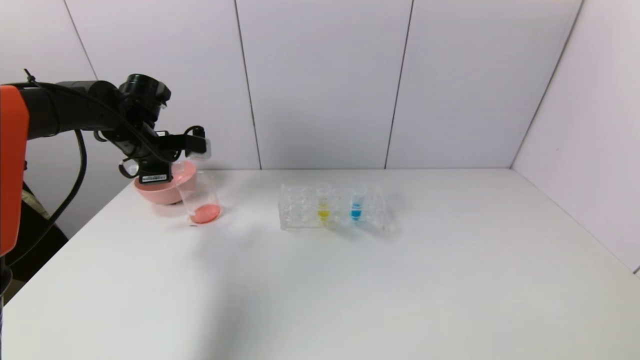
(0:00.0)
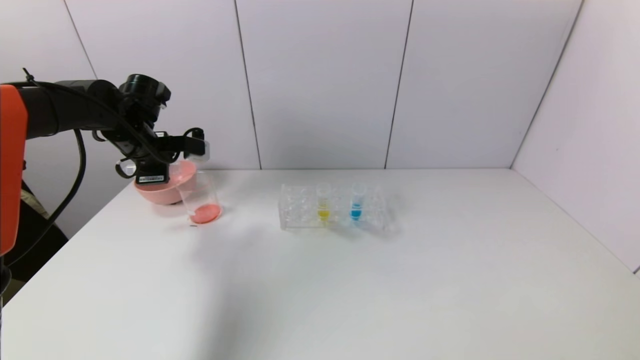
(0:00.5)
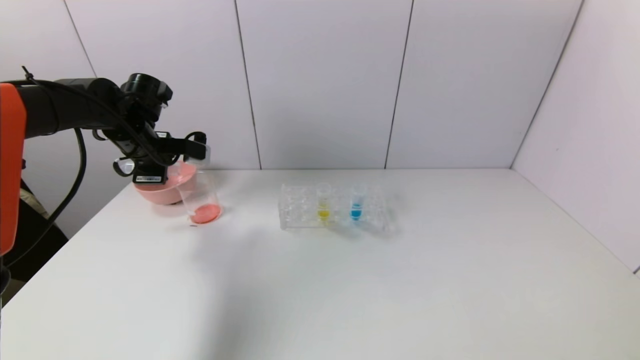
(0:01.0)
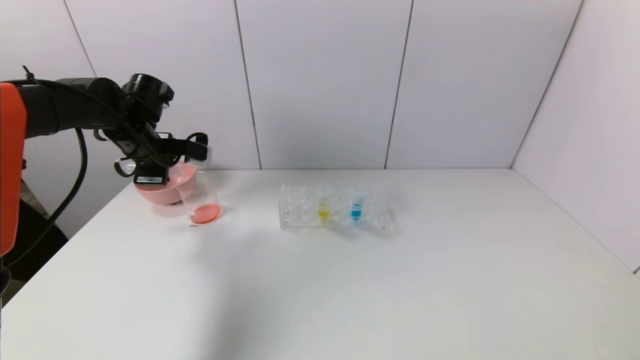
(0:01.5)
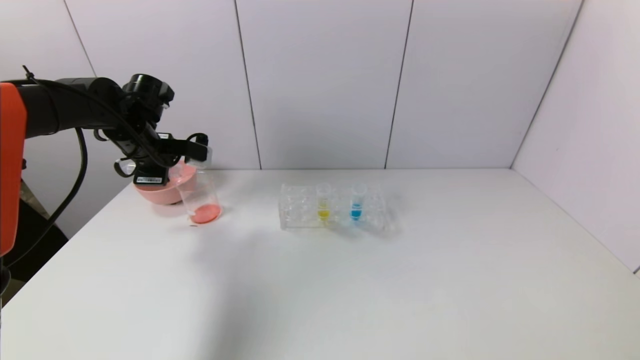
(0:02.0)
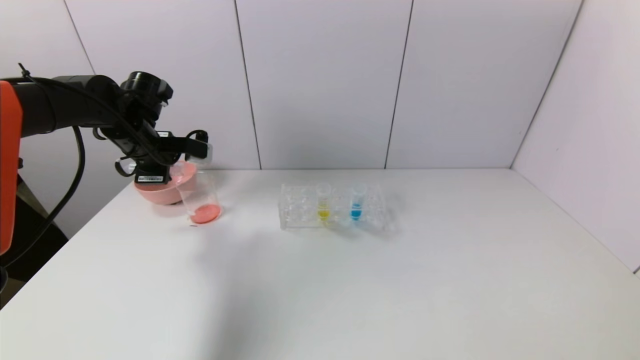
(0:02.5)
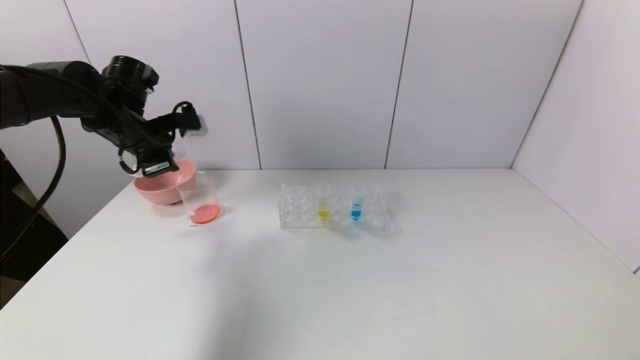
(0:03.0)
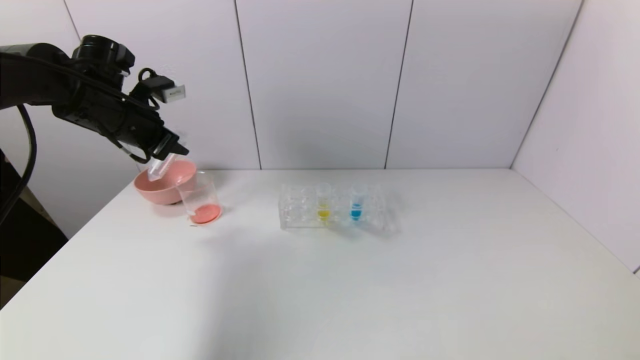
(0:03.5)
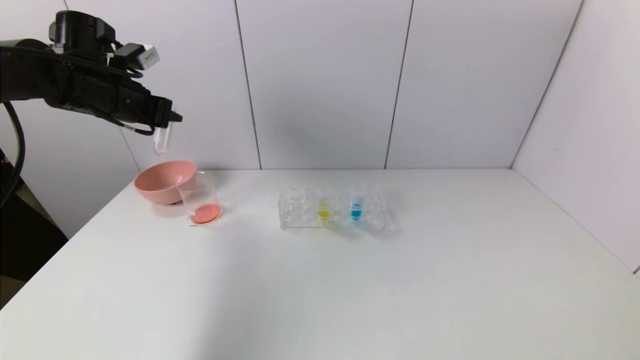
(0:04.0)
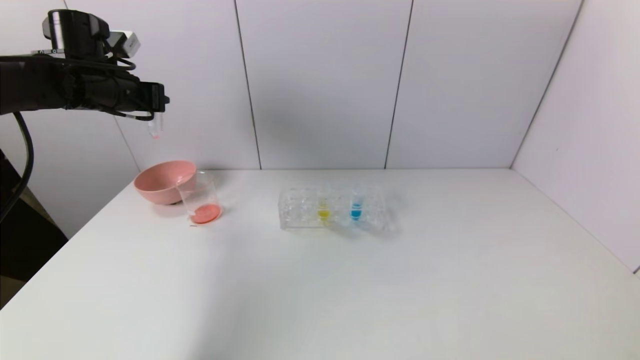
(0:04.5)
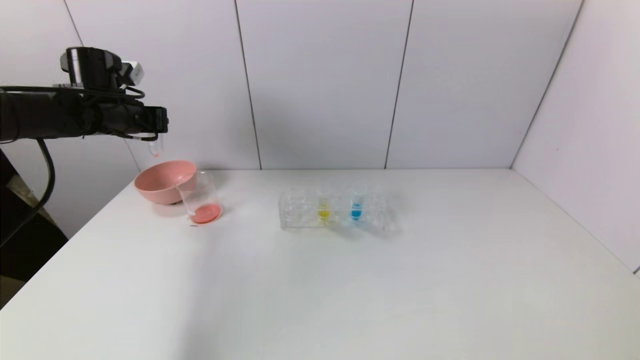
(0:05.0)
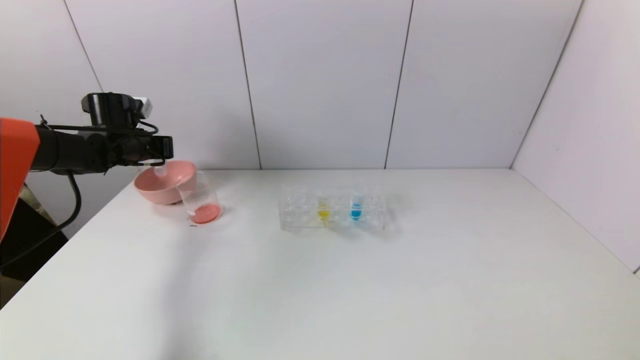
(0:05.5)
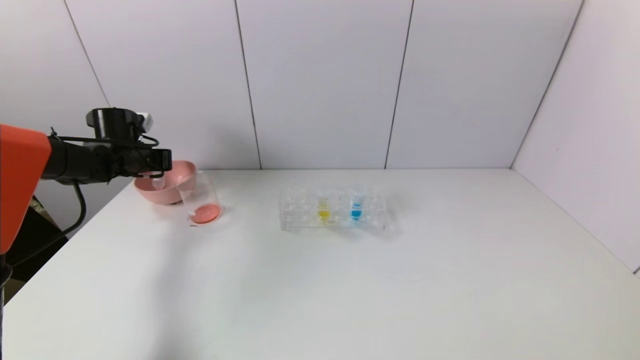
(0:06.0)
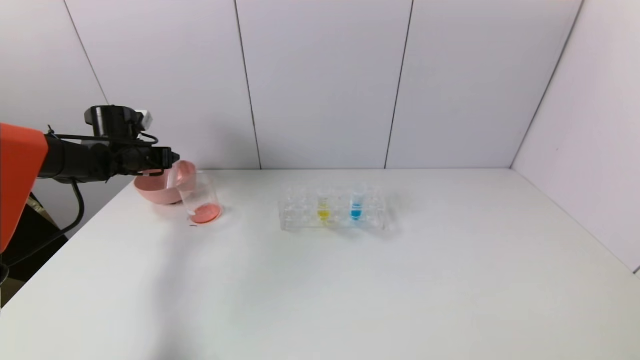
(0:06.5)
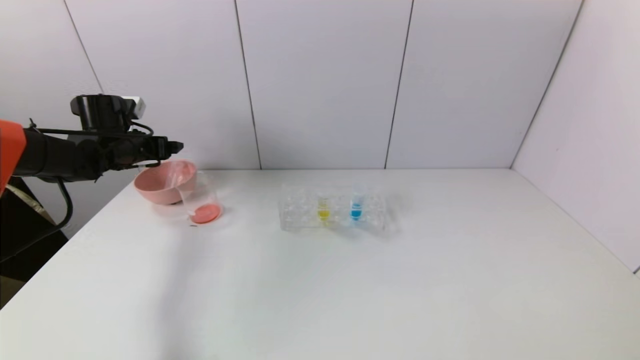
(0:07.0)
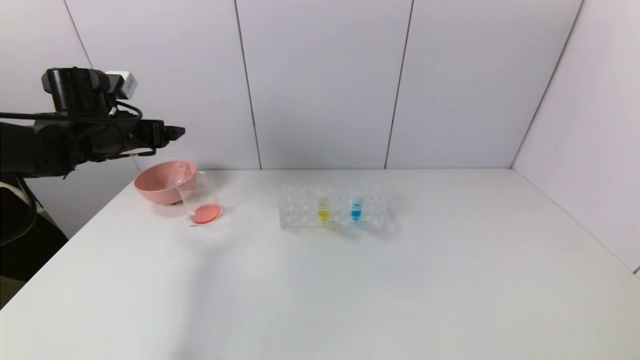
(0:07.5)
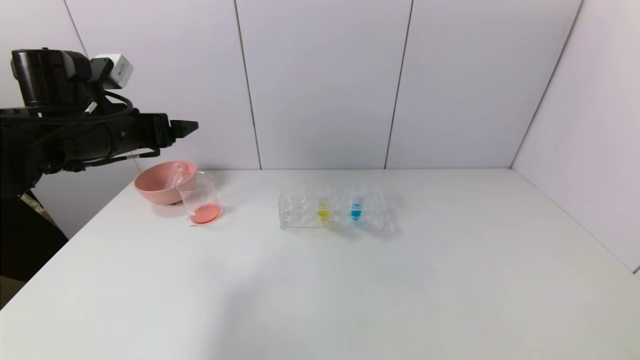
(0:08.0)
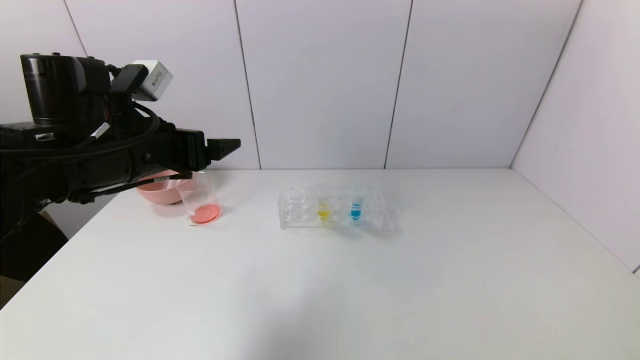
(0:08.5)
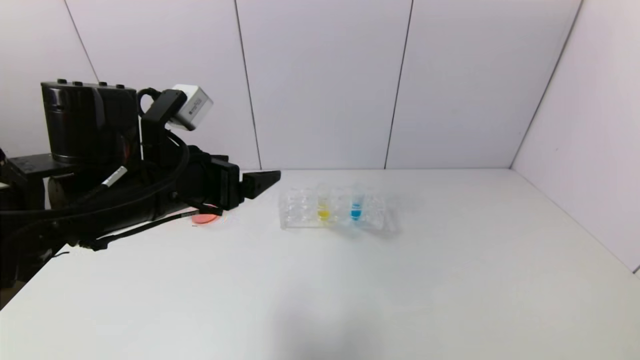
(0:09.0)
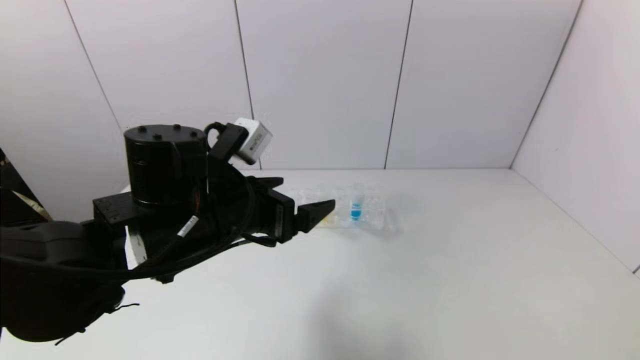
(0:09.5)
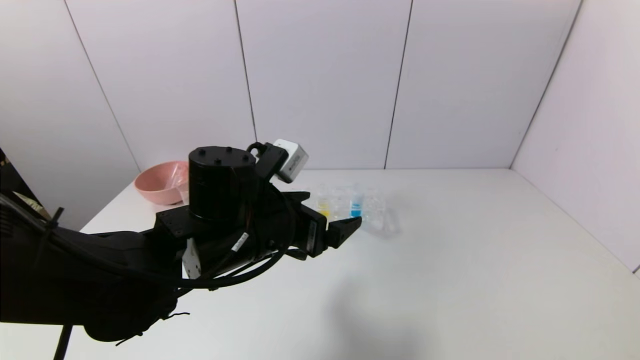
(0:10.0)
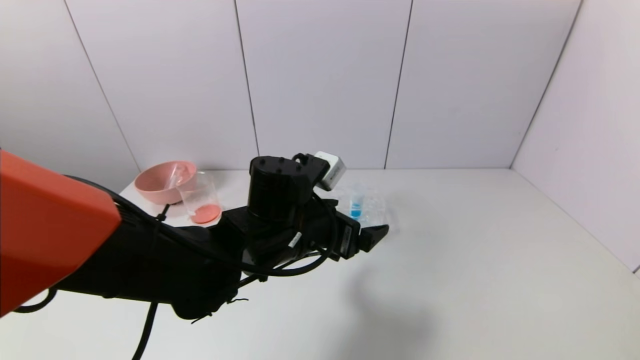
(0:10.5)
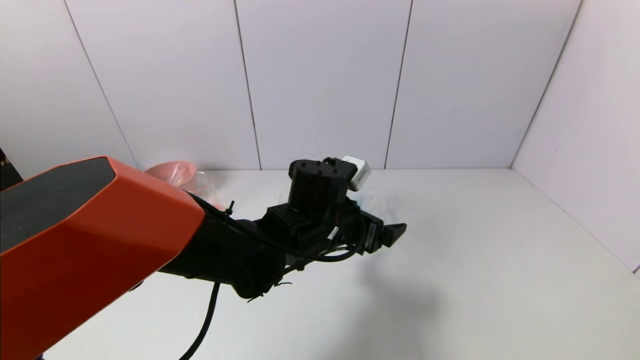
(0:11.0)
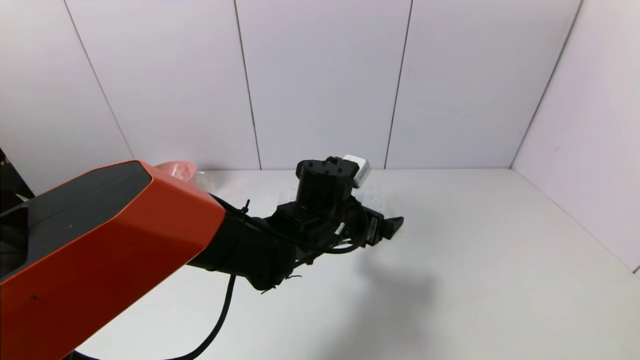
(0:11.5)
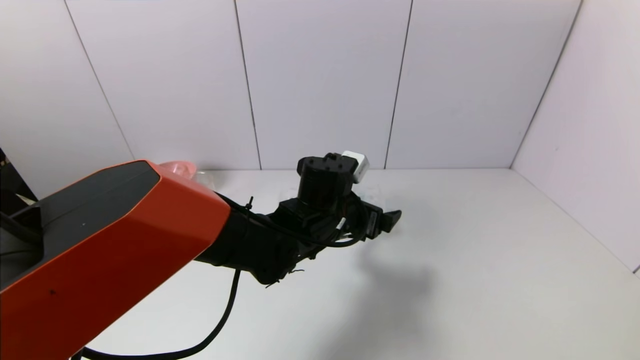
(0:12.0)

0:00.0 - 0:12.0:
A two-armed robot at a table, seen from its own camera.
Task of the whole recording: pick up the test tube with red pigment and the test tube with blue pigment by grippers and pour them into the container.
Step, 0:00.0 - 0:03.5: Pour the red reagent into the graduated cylinder with the left gripper.
Step, 0:04.0 - 0:07.0: Place the test tube into the bowl with the left gripper.
0:00.0 - 0:02.0: The grippers stay close to where they were, moving slightly.
0:02.0 - 0:04.0: The left gripper moves upward, some 10 cm.
0:04.0 - 0:06.0: The left gripper moves downward, forward and to the left, about 15 cm.
0:06.0 - 0:08.0: The left gripper moves backward, upward and to the right, about 20 cm, and opens its fingers.
0:08.0 - 0:10.0: The left gripper travels to the right and downward by some 20 cm.
0:10.0 - 0:12.0: The left gripper heads to the right and forward, covering some 10 cm.

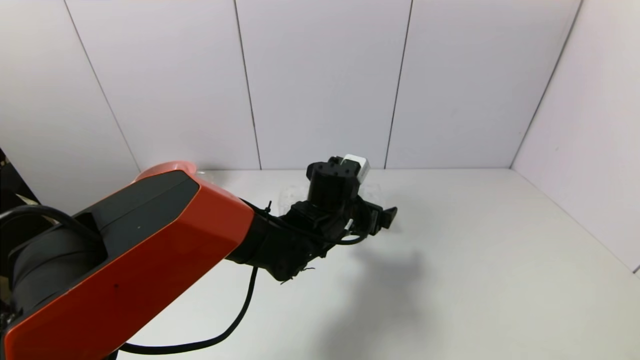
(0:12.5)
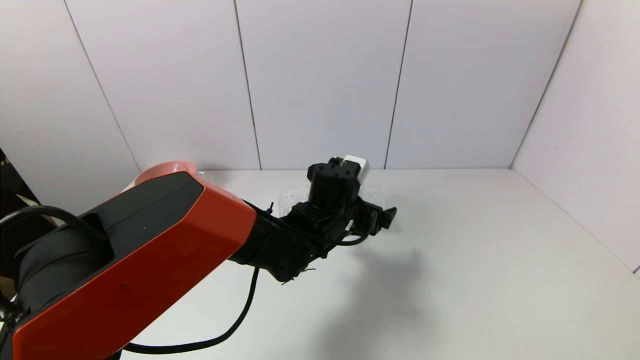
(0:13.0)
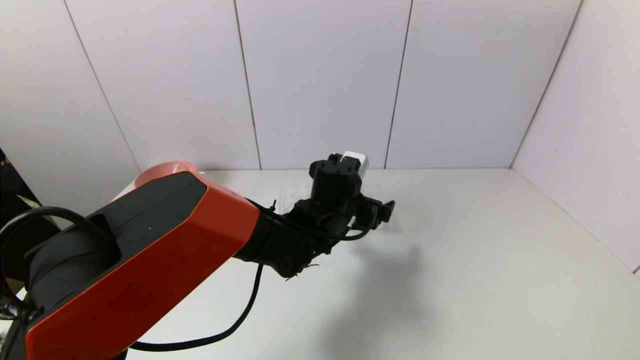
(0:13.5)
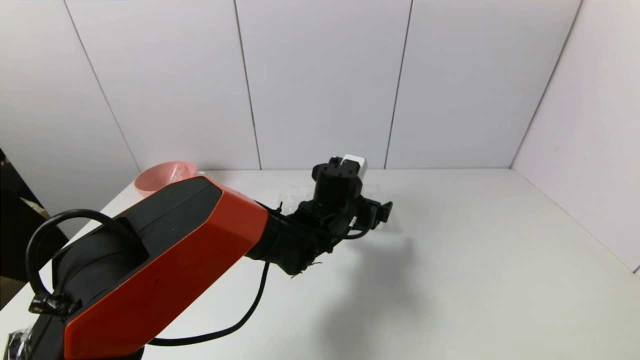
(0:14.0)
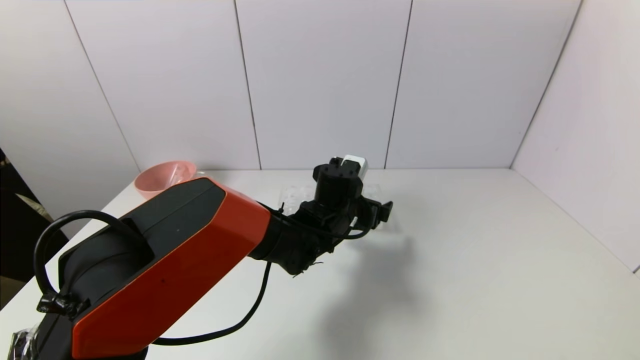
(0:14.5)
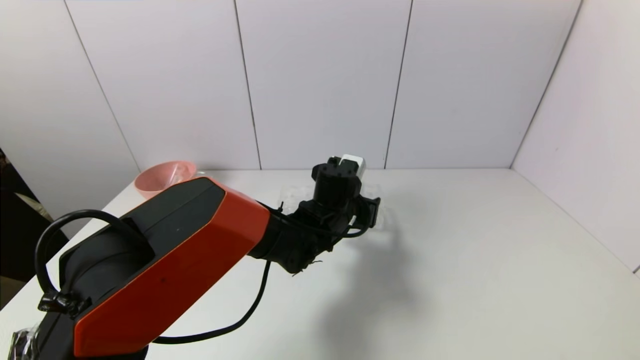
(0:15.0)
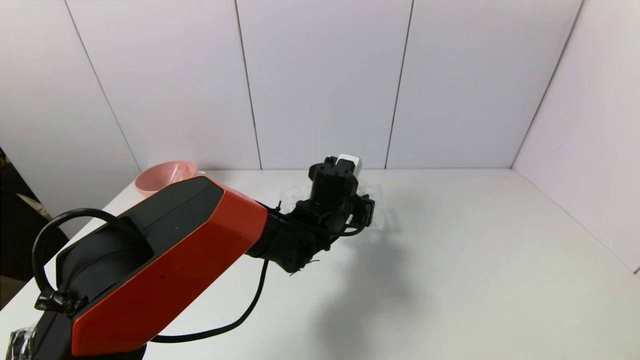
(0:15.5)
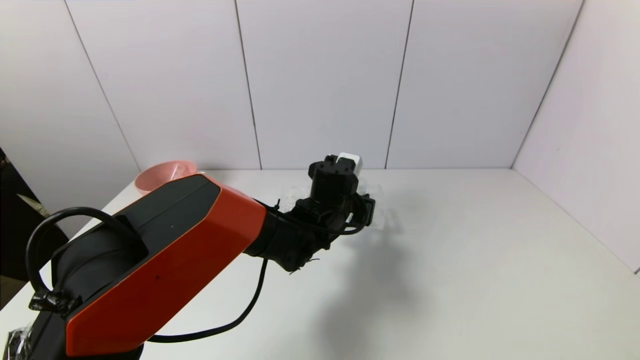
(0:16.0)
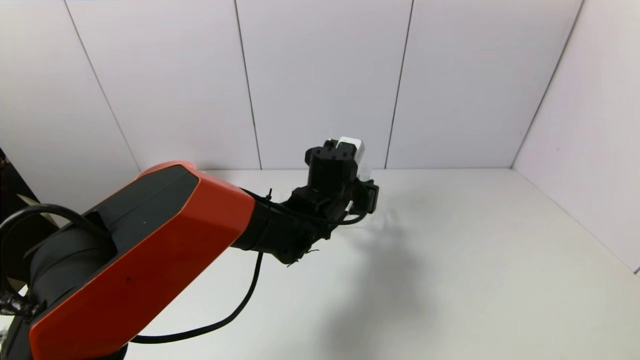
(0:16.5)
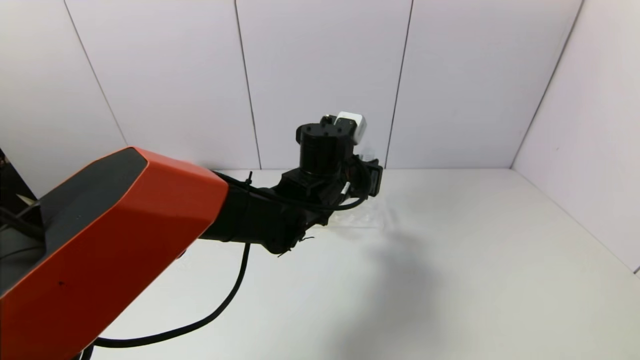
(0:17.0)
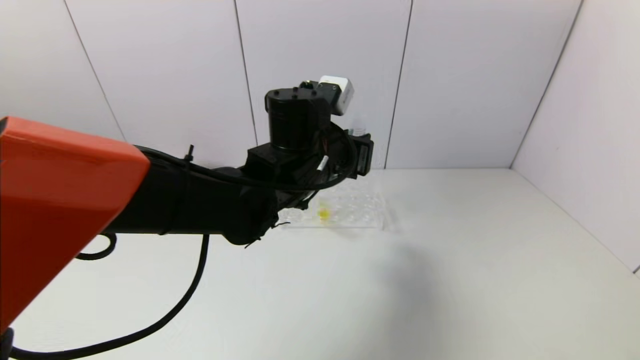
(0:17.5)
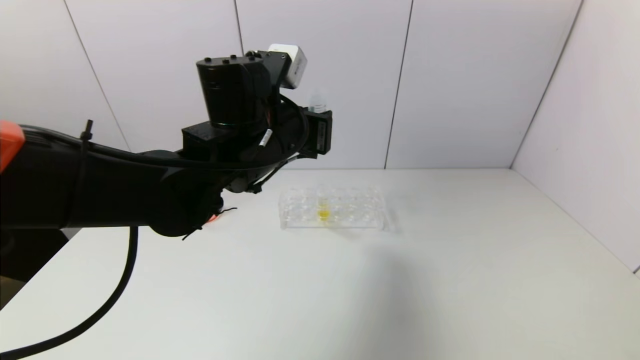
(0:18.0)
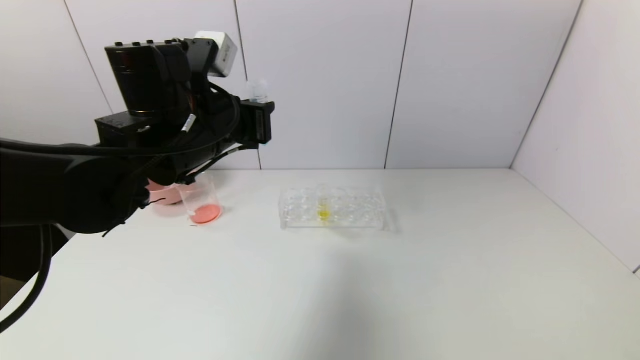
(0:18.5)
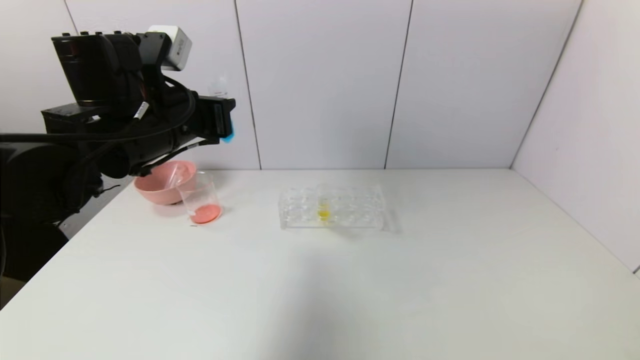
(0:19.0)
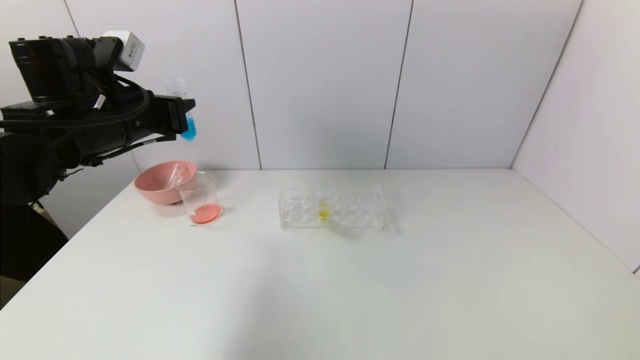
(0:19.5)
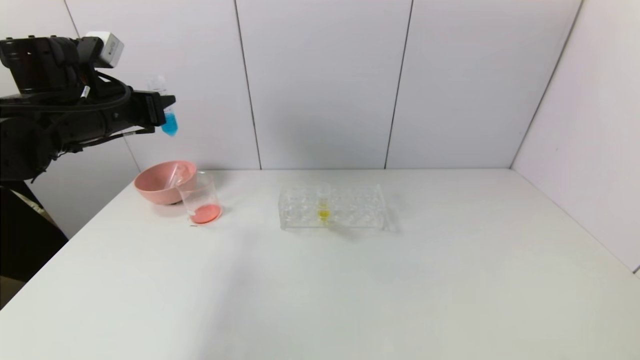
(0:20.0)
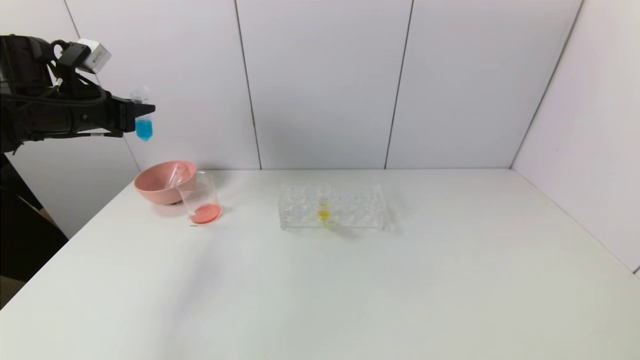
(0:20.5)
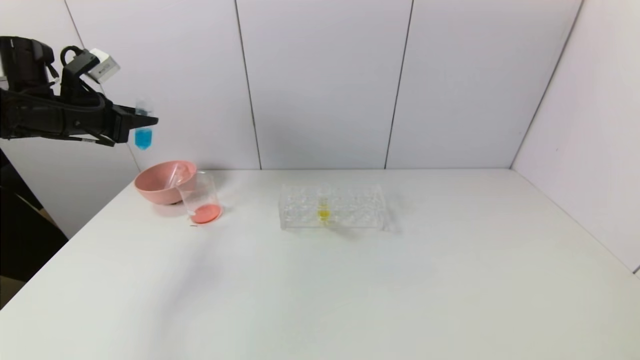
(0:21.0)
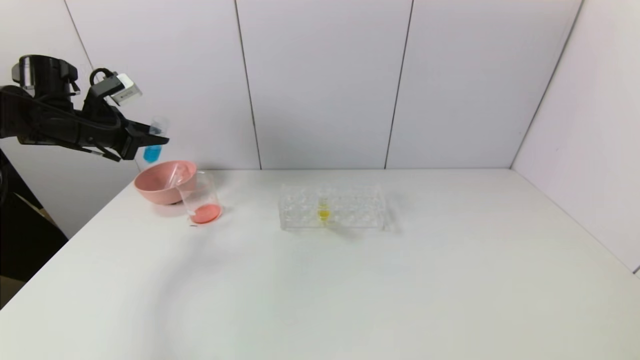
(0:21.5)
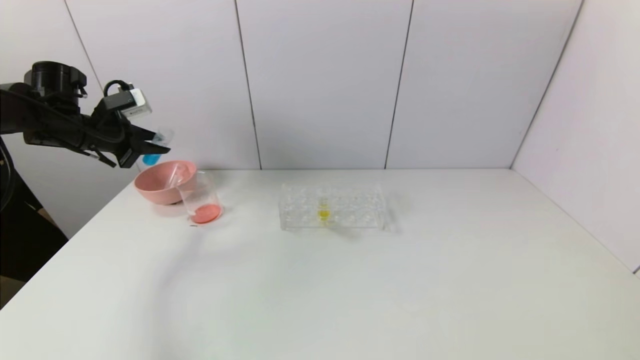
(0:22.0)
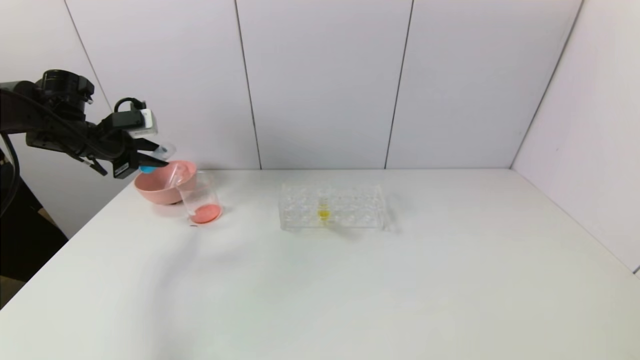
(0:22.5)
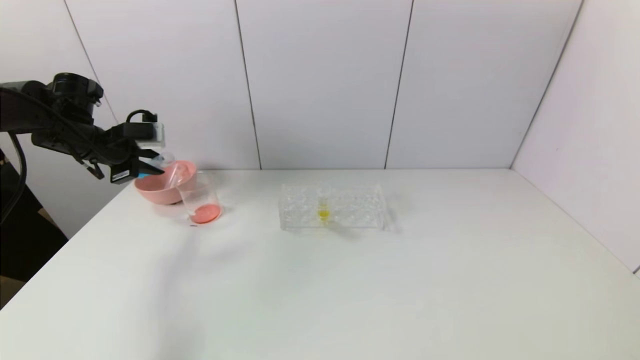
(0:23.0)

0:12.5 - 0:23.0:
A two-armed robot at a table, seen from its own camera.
Task of the whole recording: pick up the test tube with red pigment and the test tube with blue pigment by grippers and pour them into the container.
Step, 0:12.5 - 0:15.5: Grasp the blue reagent with the left gripper.
0:12.5 - 0:14.5: The grippers move only a little.
0:14.5 - 0:16.5: The left gripper closes its fingers.
0:16.5 - 0:19.0: The left gripper shifts about 25 cm to the left and upward.
0:19.0 - 0:21.0: The left gripper shifts roughly 20 cm to the left and forward.
0:21.0 - 0:23.0: The left gripper goes about 5 cm downward.
